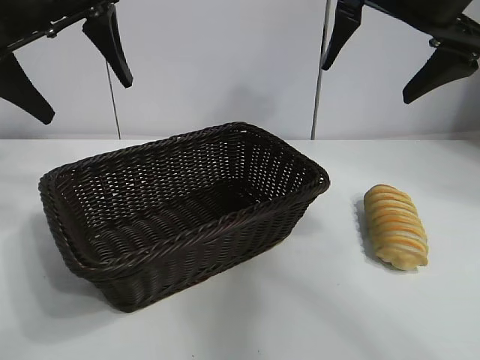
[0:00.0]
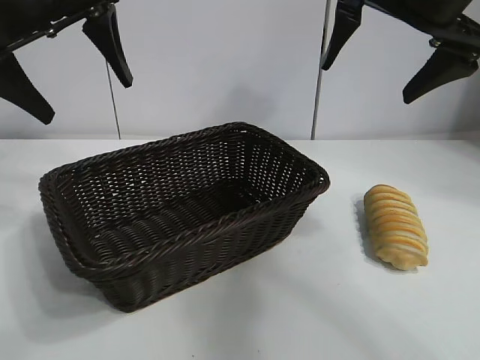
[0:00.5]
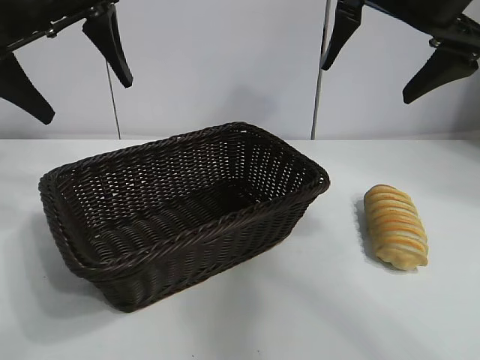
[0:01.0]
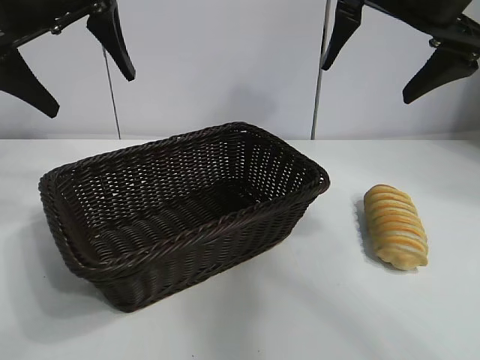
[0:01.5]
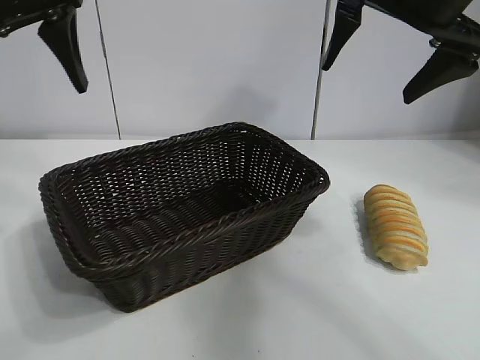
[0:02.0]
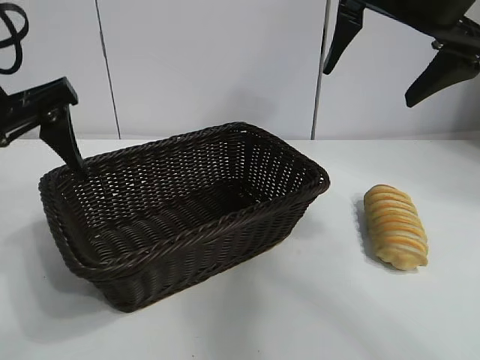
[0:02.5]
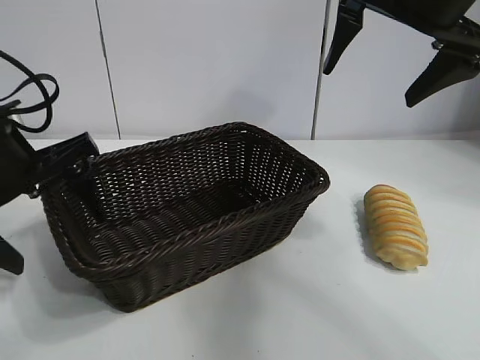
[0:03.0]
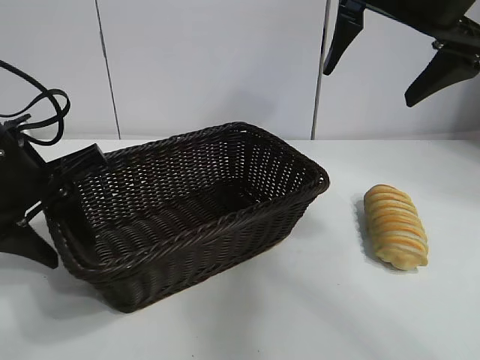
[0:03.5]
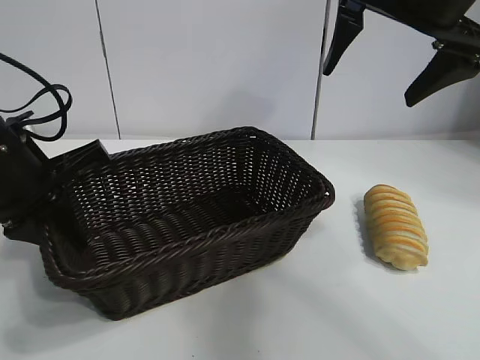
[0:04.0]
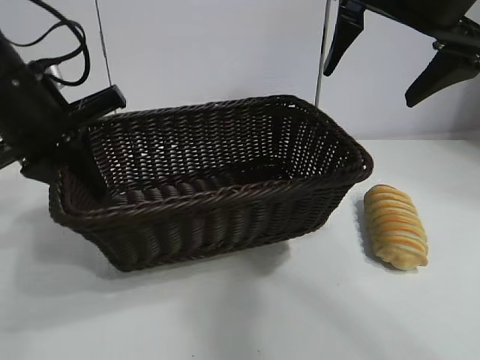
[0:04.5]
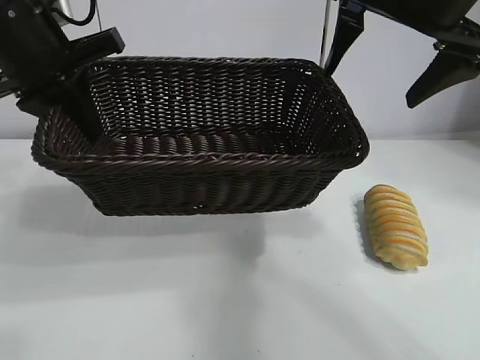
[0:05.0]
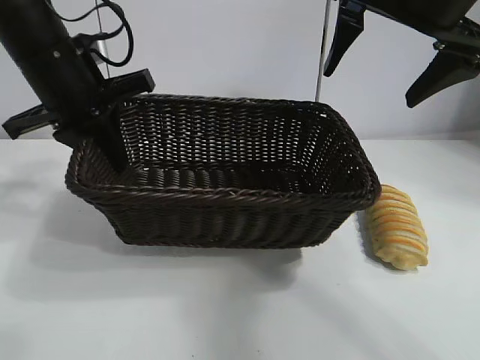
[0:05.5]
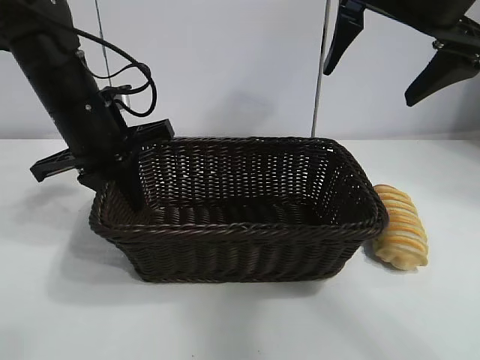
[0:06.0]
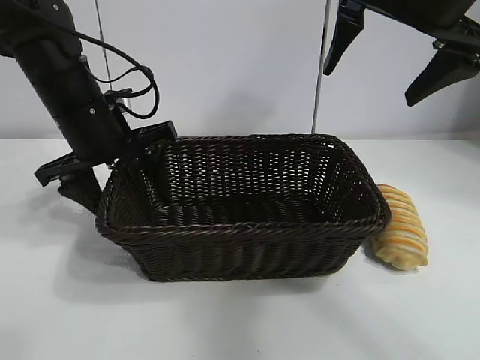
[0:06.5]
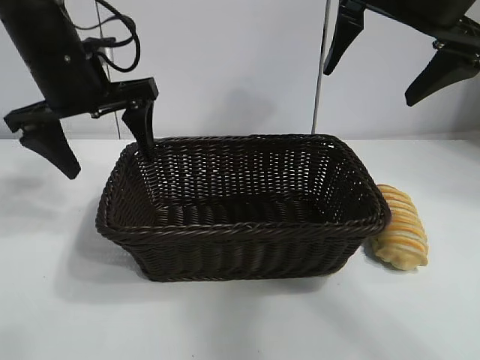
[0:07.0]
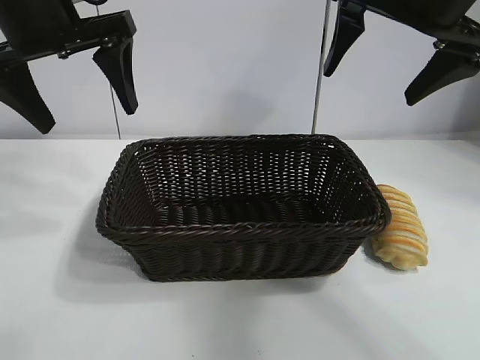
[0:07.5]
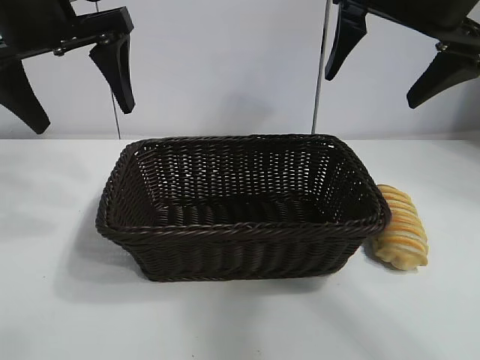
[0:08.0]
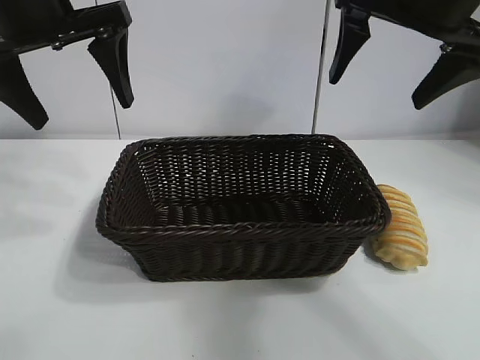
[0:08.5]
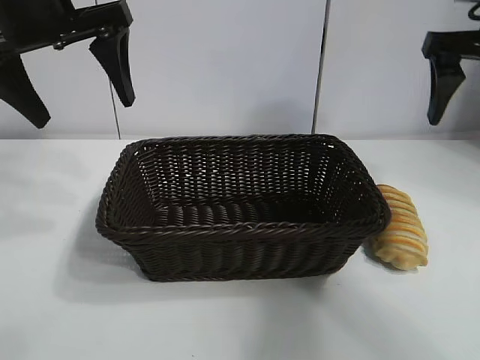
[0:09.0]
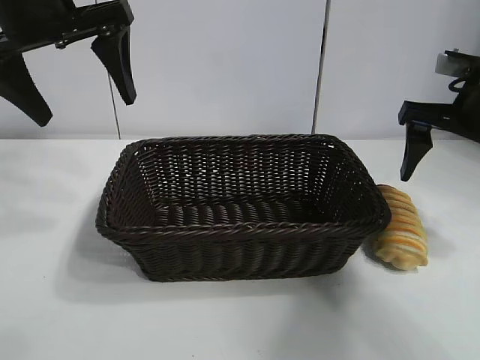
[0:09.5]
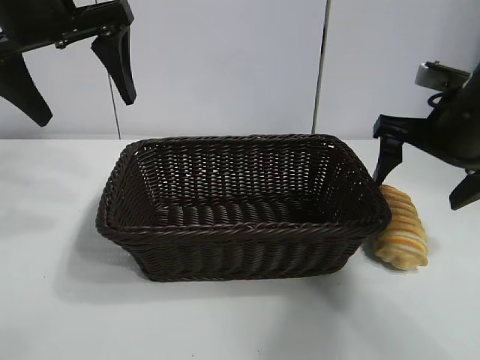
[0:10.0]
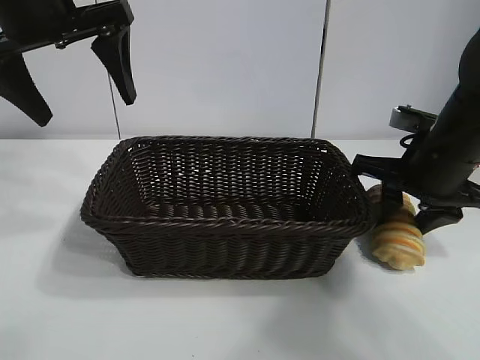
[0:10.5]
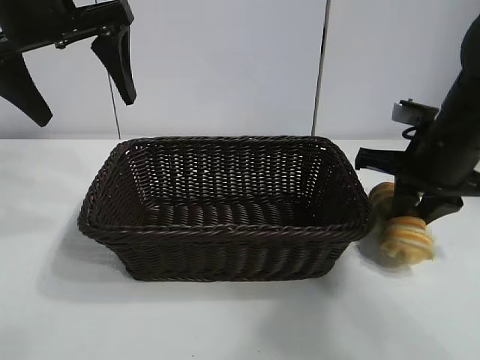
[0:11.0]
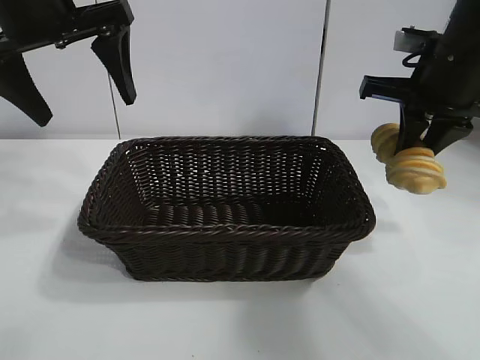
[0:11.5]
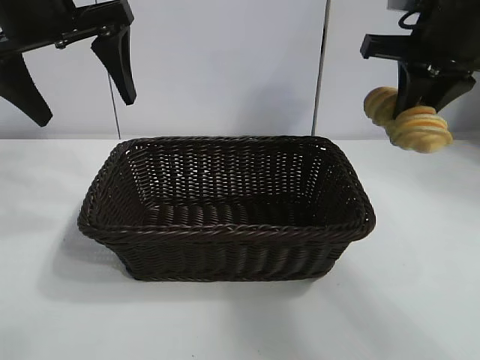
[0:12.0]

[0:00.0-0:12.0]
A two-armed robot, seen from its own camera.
Task of the whole recording: pick up the long bread and put it into the basket.
Step, 0:01.5 to 0:03.5: Grasp the basket with the left gripper.
Step, 0:04.0 to 0:06.5: Place the basket in the center of the table with the left gripper.
Step, 0:07.0 to 0:10.5: Grasp the long bread with right gripper.

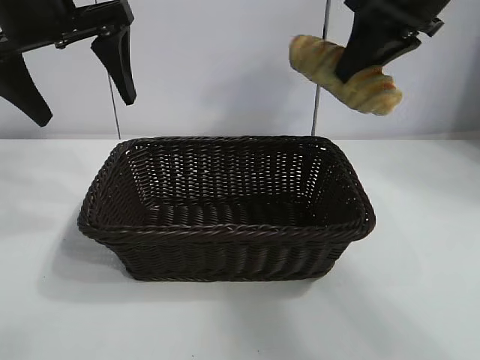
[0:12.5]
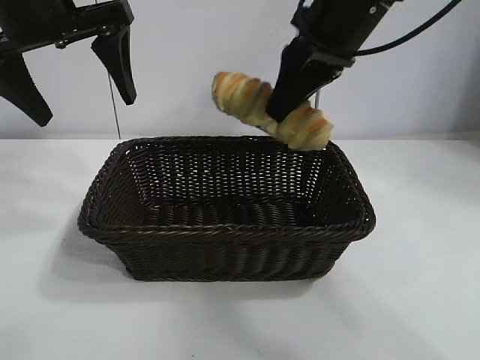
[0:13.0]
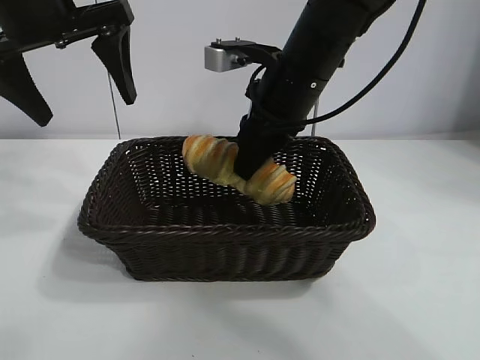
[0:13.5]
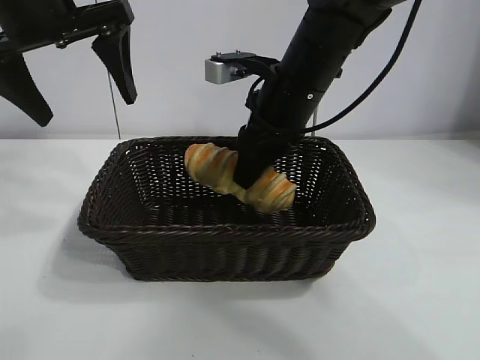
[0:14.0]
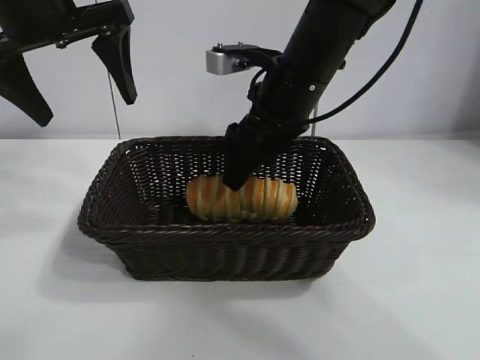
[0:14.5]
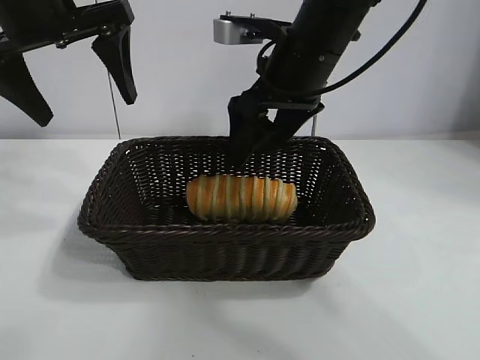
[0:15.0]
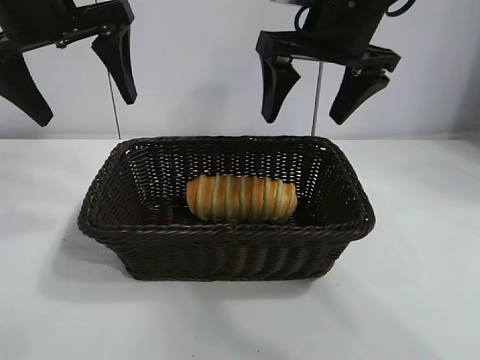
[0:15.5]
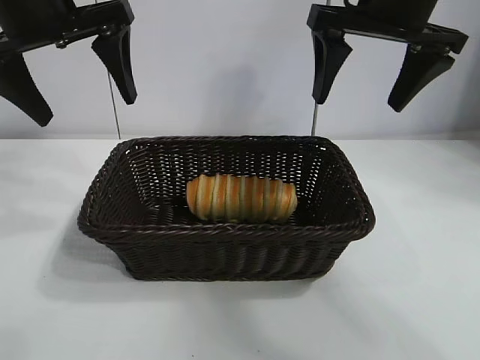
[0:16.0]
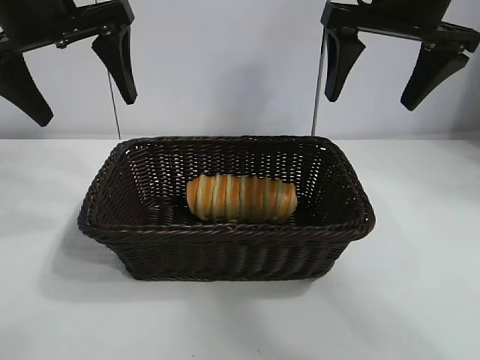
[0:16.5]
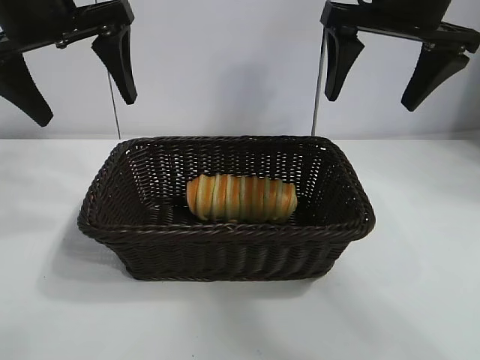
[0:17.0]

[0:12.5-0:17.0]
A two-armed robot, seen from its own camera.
Task of the whole recording: pick up the long bread and put it into the basket.
Step, 0:12.5 to 0:14.5: Place the long bread in the basket with right gripper.
